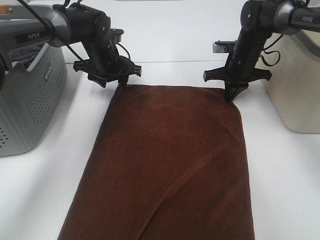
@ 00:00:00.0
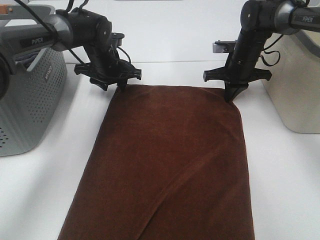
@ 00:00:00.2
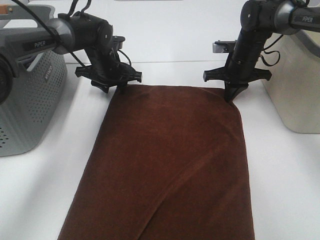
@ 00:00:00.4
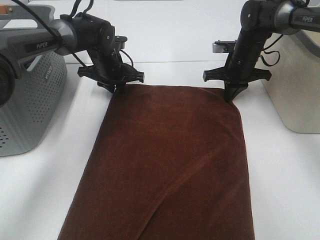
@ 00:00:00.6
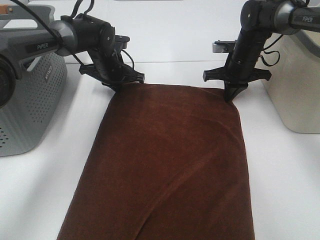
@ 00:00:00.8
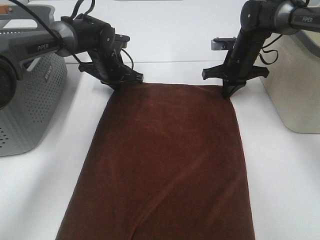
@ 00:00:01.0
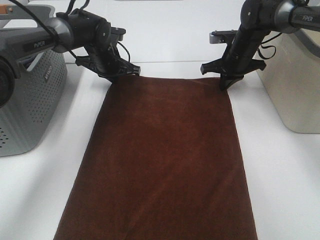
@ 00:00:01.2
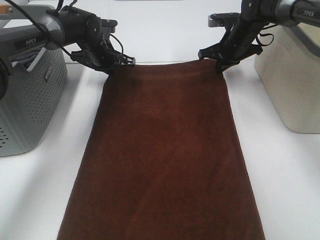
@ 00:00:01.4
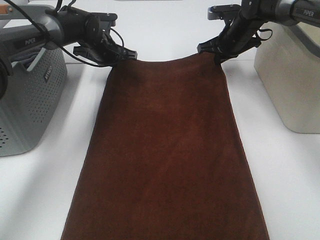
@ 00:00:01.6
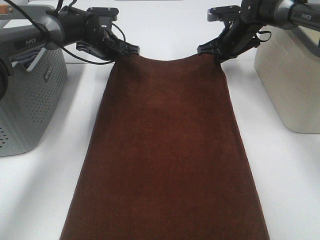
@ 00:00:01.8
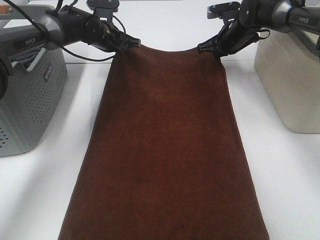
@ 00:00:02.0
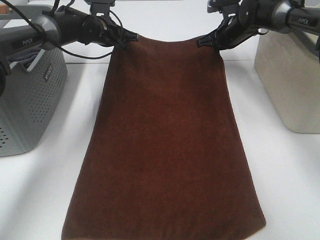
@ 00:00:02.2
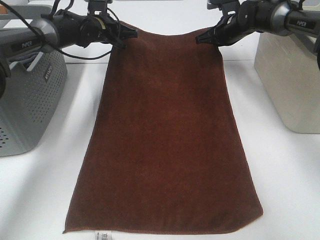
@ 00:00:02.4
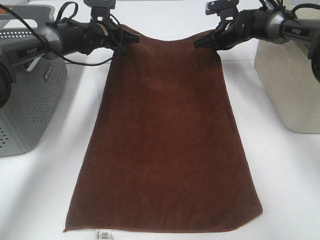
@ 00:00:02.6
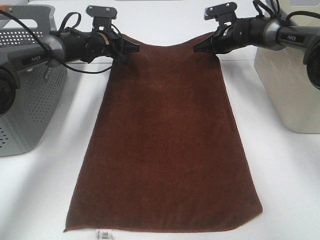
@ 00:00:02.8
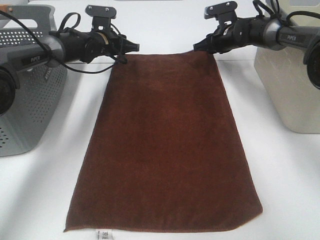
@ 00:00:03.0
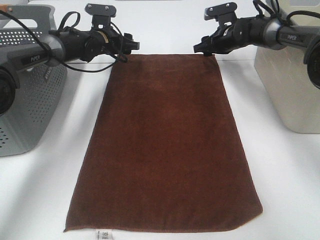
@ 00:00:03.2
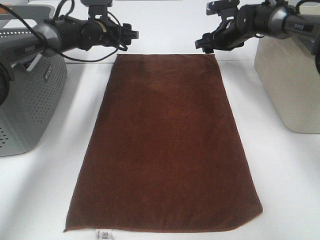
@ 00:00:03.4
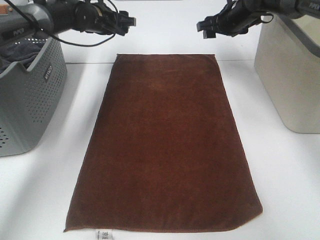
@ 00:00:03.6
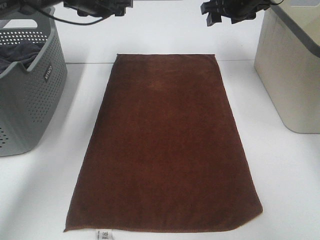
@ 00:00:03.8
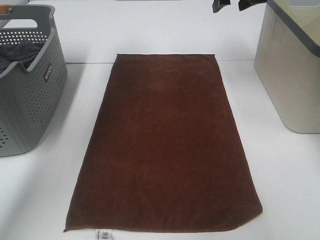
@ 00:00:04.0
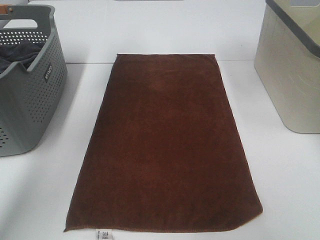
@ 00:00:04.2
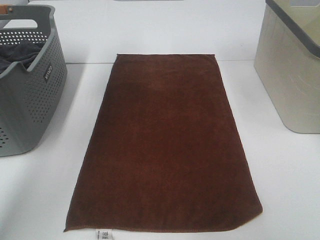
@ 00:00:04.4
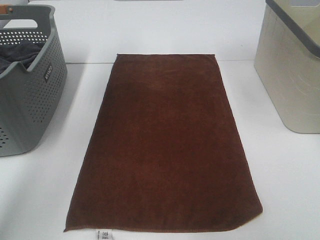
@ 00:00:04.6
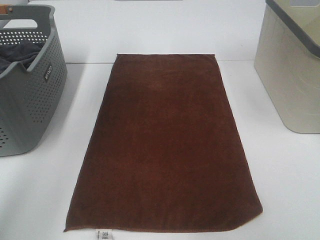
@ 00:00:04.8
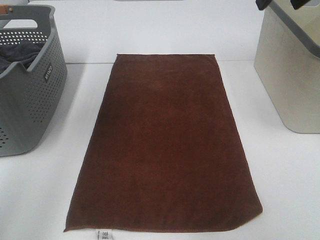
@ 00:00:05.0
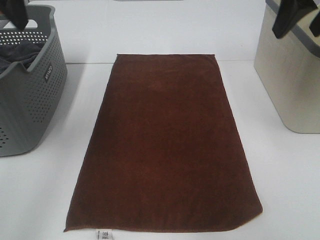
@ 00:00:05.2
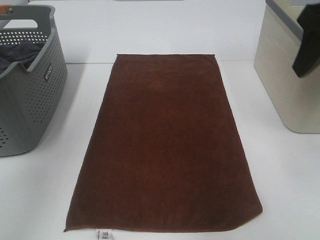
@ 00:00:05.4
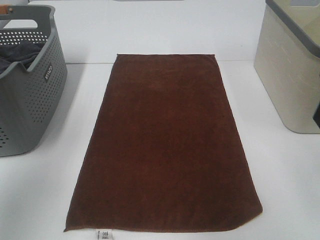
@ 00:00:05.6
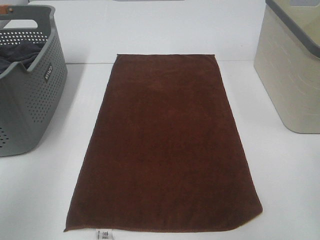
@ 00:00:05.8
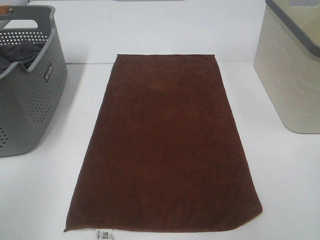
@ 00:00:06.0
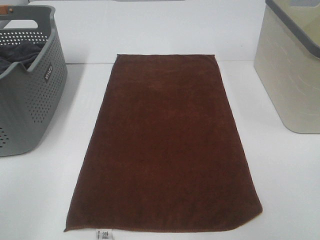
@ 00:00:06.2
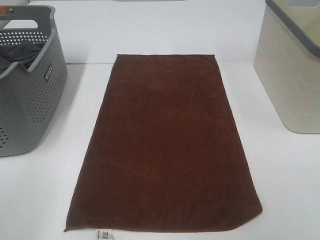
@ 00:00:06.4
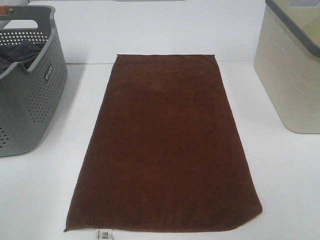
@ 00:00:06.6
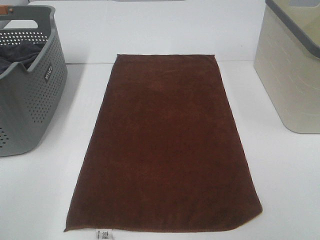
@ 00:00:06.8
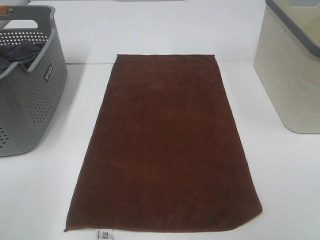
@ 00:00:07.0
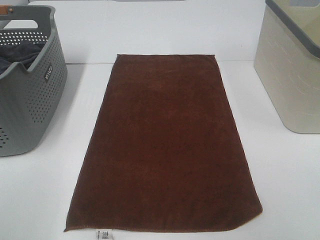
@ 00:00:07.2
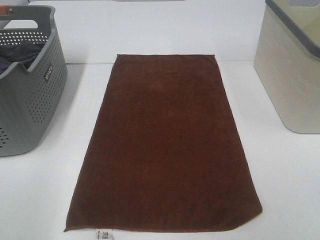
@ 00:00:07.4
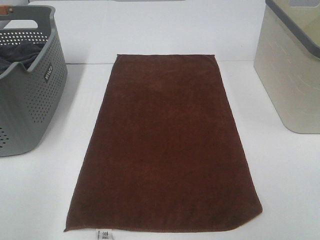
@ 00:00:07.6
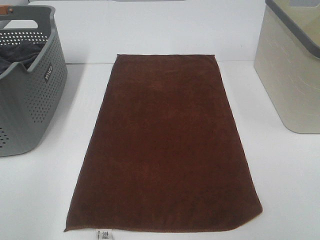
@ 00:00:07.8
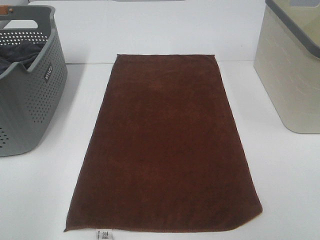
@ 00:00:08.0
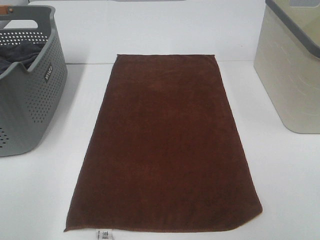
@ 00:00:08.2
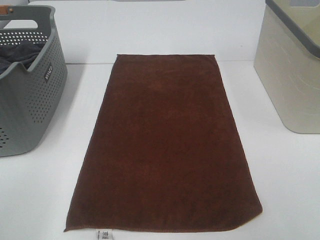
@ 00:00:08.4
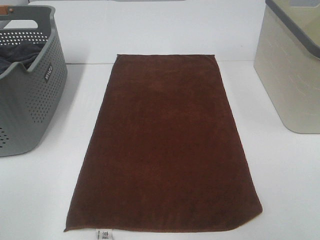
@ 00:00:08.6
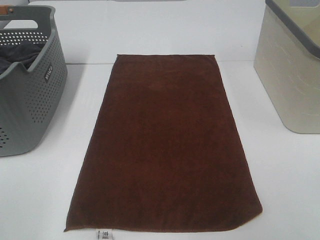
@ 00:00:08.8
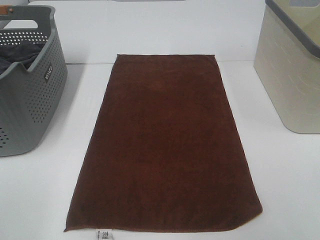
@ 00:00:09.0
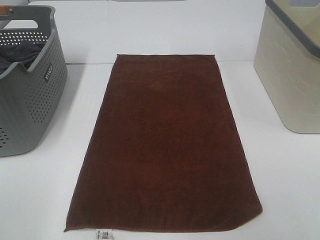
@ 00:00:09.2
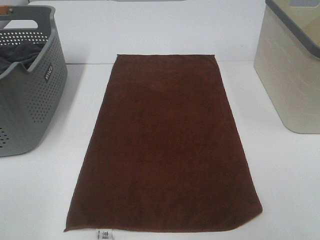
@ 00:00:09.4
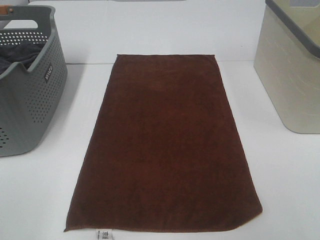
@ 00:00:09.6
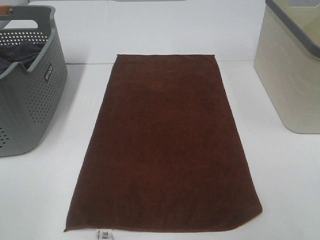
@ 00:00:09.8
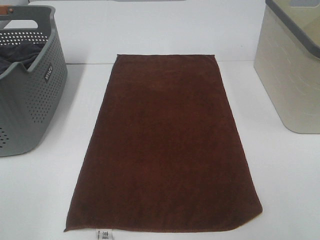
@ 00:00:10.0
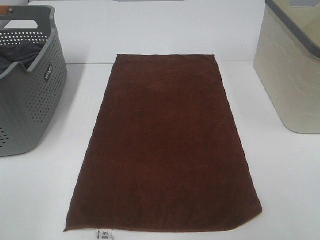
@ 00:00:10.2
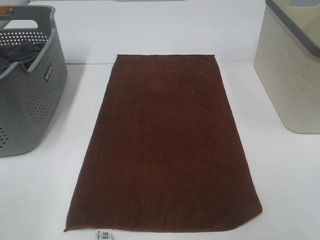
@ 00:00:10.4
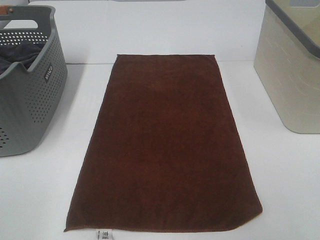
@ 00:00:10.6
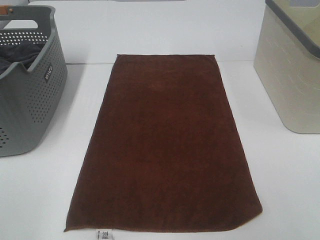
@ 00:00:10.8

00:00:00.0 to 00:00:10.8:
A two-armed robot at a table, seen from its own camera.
Task of the whole recording: Remove the towel and place it.
00:00:00.0 to 00:00:01.6: The left gripper closes its fingers. Meanwhile the right gripper ends up roughly 5 cm from where it was.
00:00:01.6 to 00:00:03.0: The left gripper opens its fingers, while the right gripper opens.
00:00:03.0 to 00:00:04.6: Both grippers move upward and backward, roughly 30 cm. The left gripper opens up.
00:00:04.6 to 00:00:06.2: The left gripper shifts some 40 cm backward.

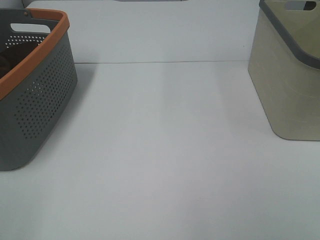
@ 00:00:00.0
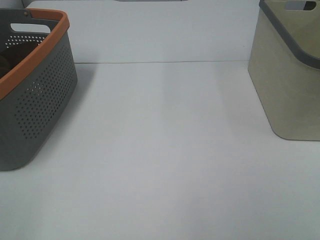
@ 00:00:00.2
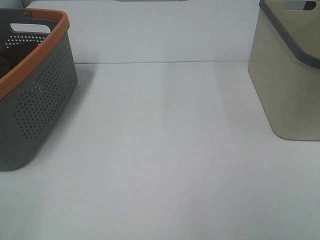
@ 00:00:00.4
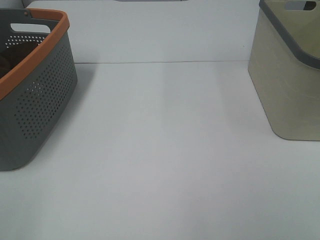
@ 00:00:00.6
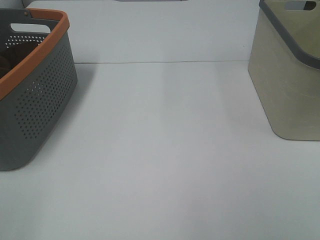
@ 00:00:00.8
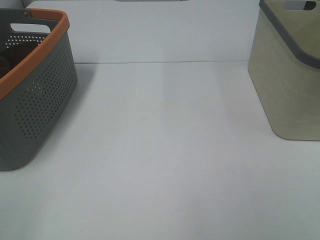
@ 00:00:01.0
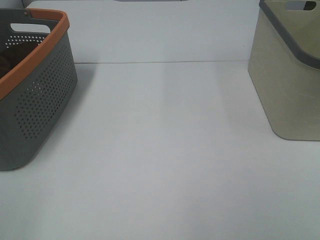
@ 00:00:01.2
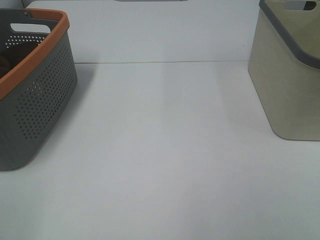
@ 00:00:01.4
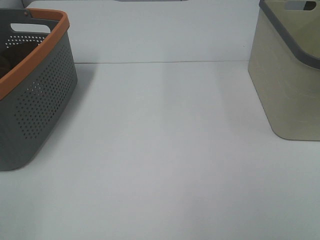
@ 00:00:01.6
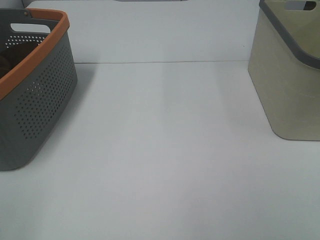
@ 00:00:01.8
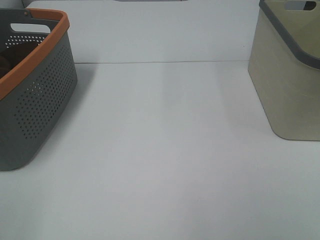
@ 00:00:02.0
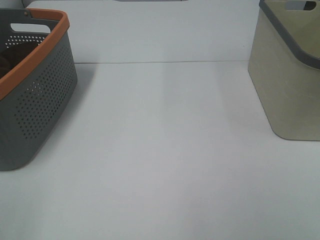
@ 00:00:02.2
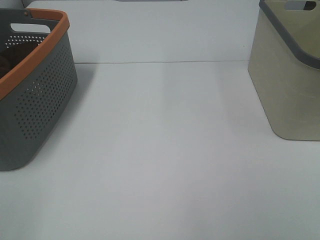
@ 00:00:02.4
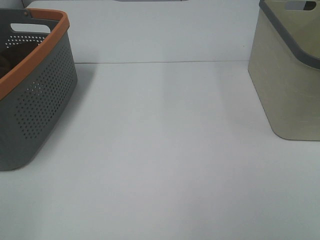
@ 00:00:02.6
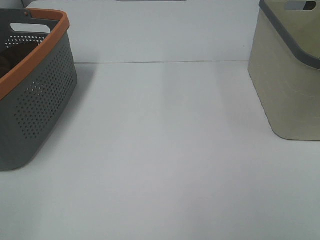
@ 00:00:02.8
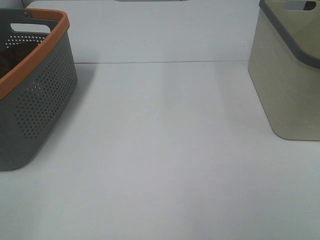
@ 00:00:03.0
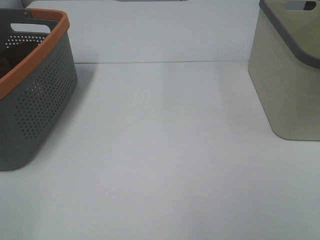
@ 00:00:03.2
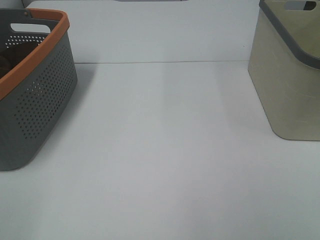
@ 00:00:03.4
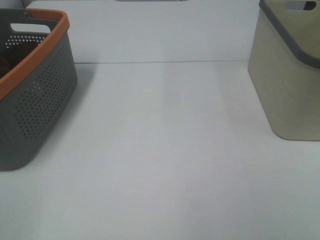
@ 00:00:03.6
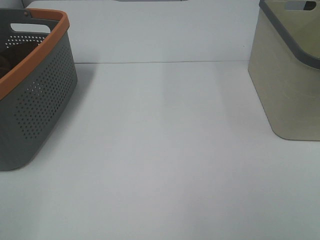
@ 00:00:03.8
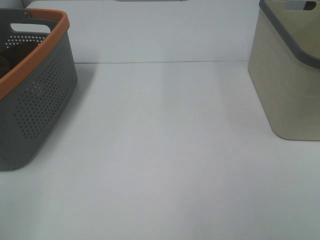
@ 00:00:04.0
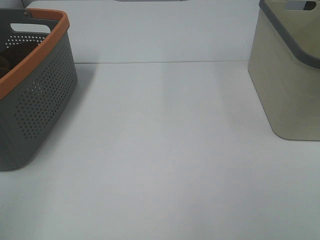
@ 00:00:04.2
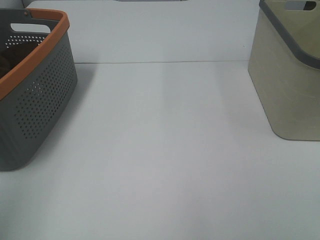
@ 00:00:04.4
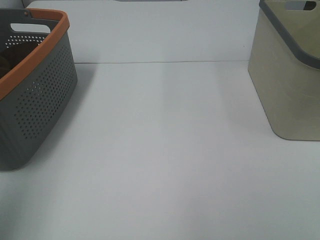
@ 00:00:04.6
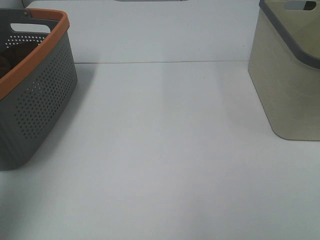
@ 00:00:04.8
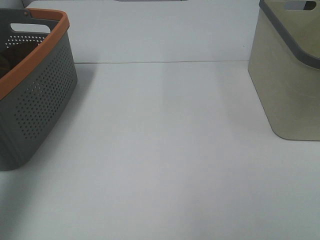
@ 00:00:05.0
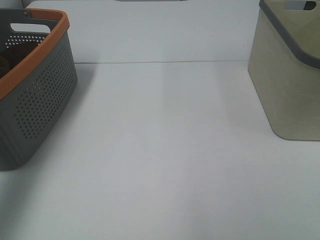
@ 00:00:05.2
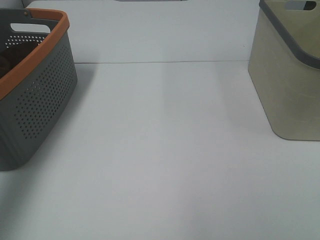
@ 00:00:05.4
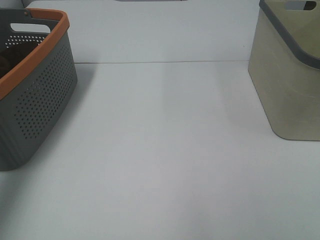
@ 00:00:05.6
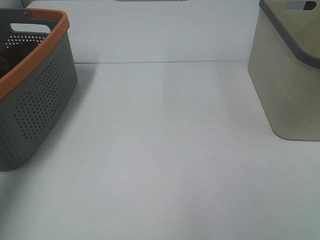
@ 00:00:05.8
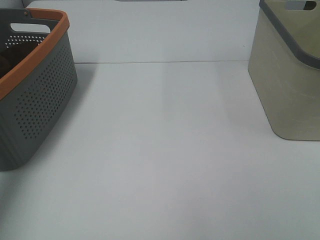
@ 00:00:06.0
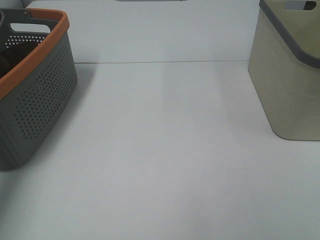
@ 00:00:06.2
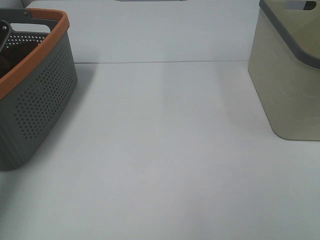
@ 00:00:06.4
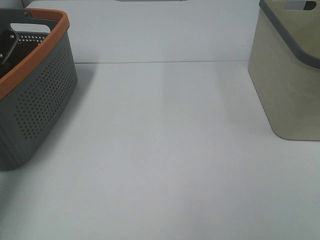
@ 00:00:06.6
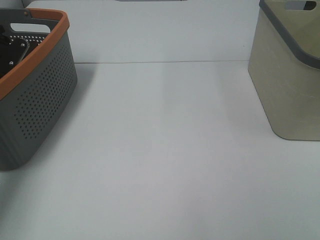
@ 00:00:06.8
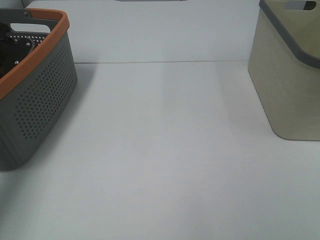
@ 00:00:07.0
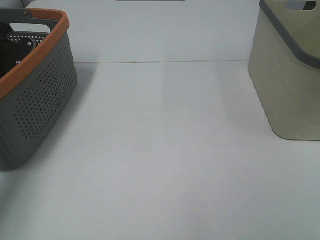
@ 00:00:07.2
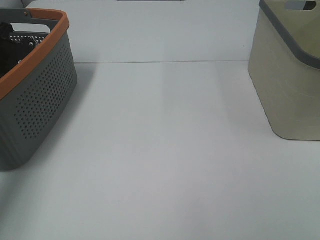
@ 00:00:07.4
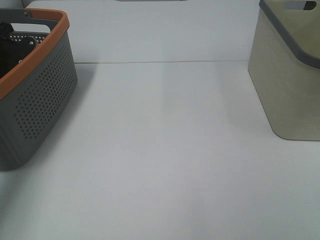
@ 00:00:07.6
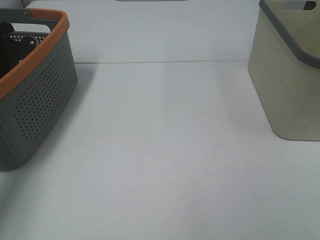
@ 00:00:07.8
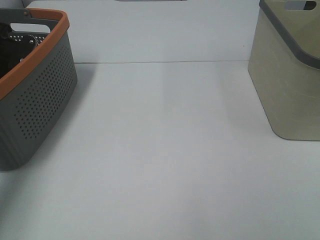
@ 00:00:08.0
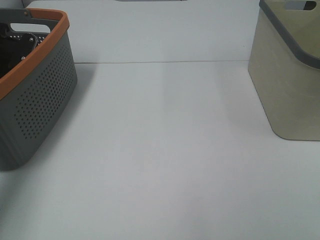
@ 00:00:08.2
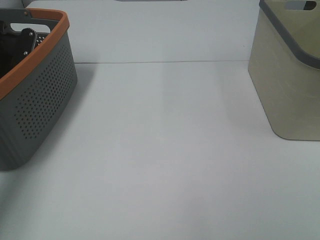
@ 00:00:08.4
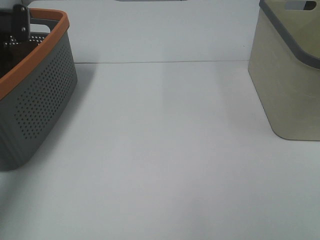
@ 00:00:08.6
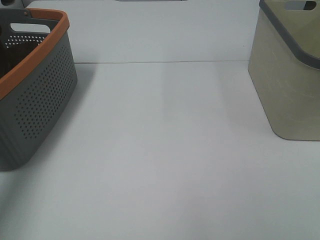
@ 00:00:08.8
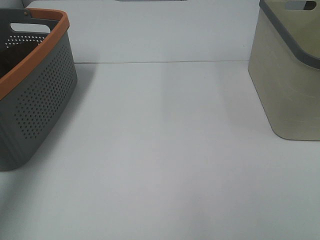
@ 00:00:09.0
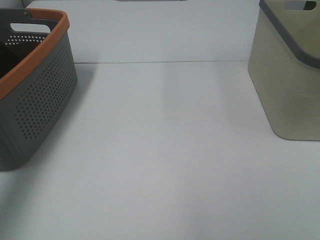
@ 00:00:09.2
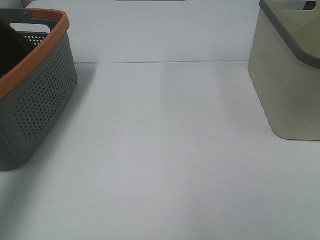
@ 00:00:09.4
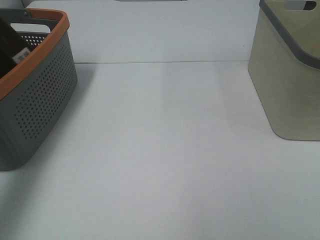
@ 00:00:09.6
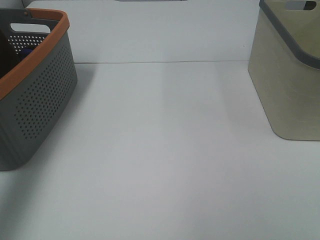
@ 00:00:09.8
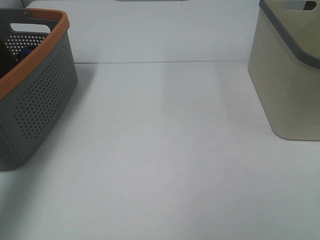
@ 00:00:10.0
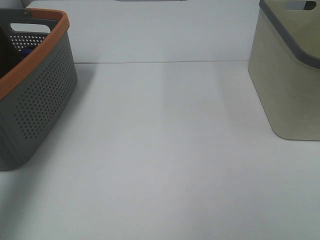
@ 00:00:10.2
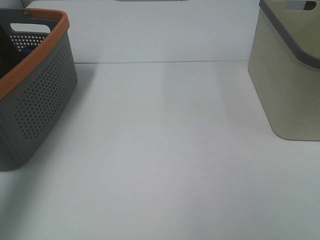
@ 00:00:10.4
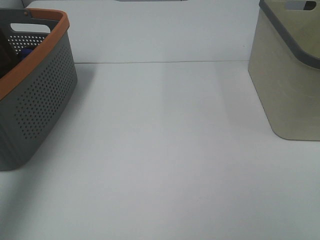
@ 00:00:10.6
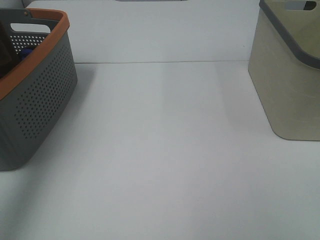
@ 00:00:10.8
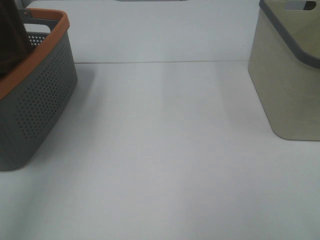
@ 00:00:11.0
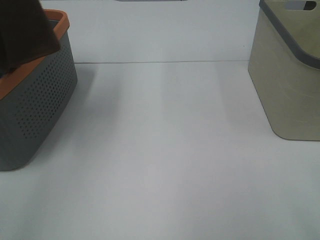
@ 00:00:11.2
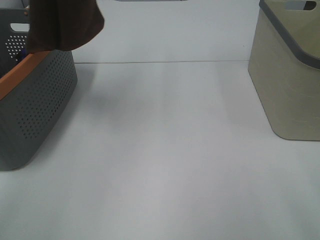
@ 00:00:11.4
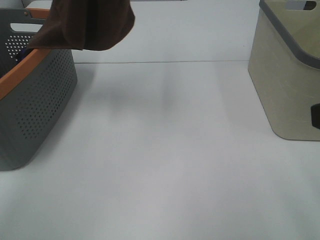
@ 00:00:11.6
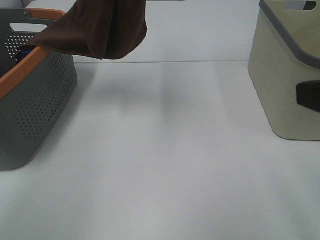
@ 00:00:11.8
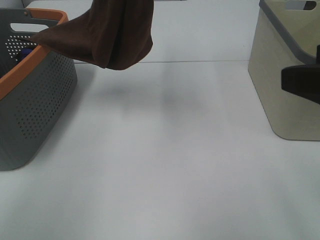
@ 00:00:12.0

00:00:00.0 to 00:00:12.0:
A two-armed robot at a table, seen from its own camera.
Task of the whole recording: Remove the towel and place it.
00:00:00.0 to 00:00:03.0: Both grippers stay about where they are.
00:00:04.4 to 00:00:06.0: The left gripper moves forward, about 35 cm.
00:00:10.4 to 00:00:12.0: The left gripper is displaced to the right by roughly 25 cm; the right gripper is displaced forward by some 15 cm.
